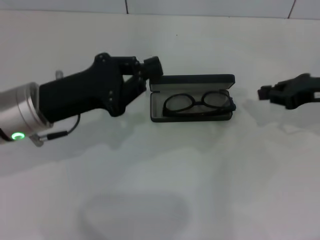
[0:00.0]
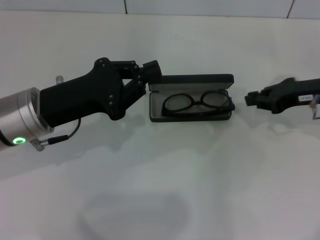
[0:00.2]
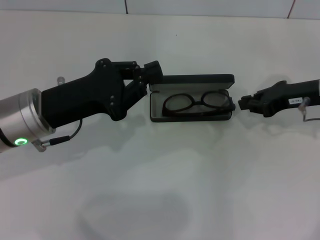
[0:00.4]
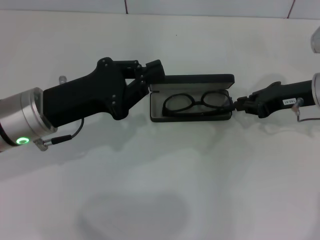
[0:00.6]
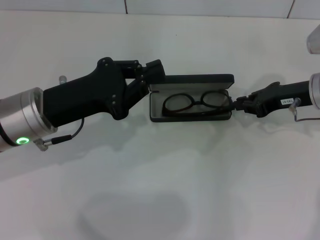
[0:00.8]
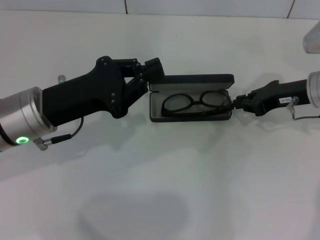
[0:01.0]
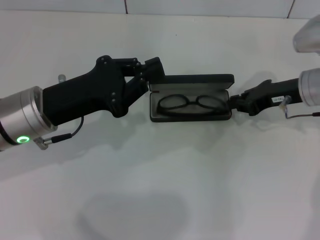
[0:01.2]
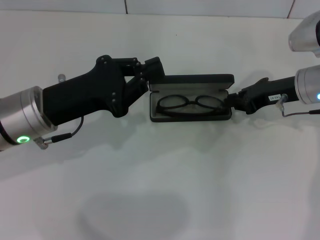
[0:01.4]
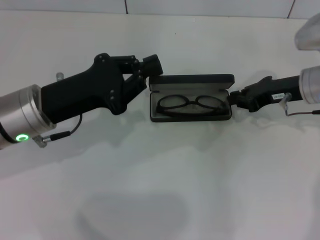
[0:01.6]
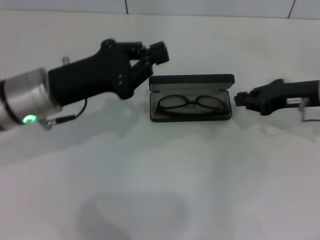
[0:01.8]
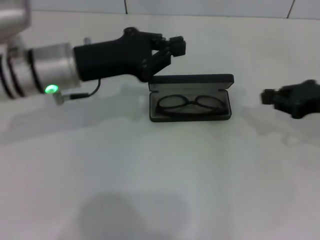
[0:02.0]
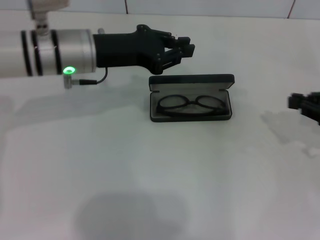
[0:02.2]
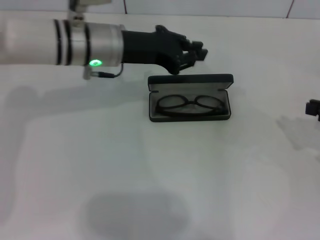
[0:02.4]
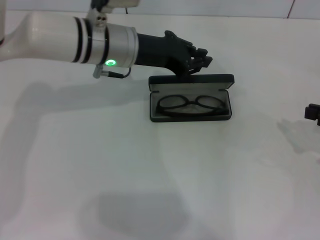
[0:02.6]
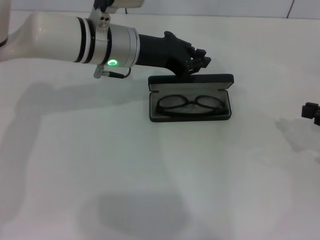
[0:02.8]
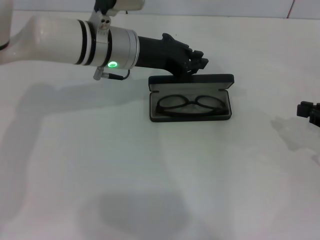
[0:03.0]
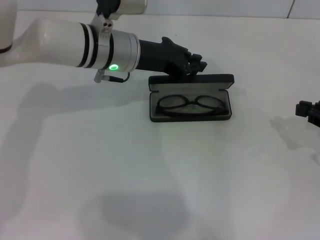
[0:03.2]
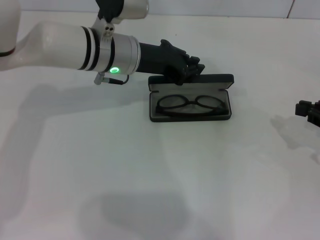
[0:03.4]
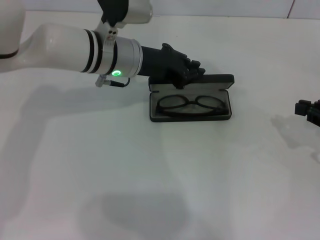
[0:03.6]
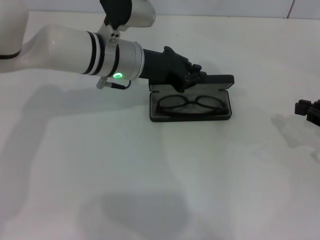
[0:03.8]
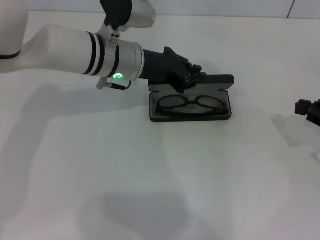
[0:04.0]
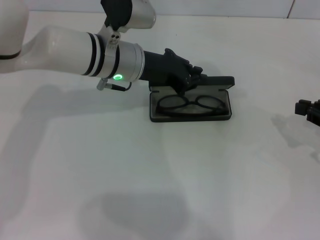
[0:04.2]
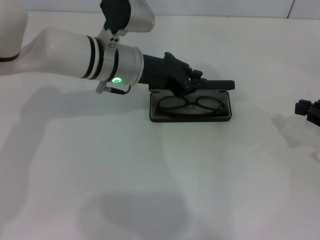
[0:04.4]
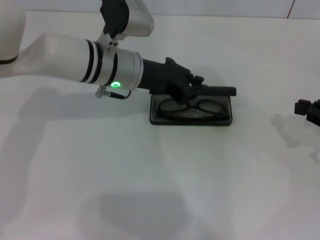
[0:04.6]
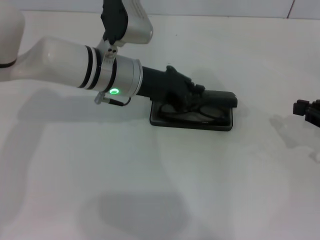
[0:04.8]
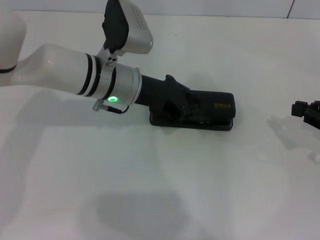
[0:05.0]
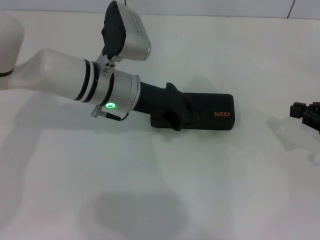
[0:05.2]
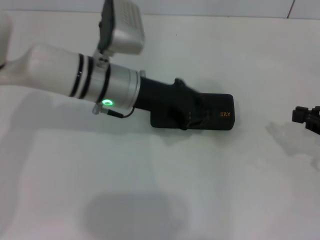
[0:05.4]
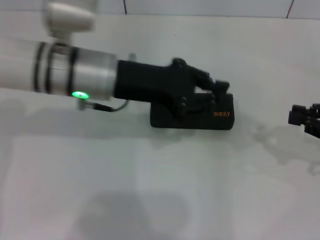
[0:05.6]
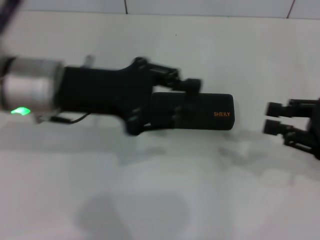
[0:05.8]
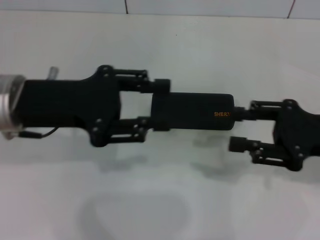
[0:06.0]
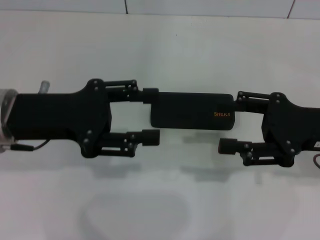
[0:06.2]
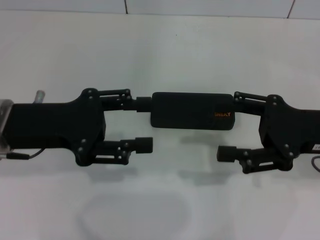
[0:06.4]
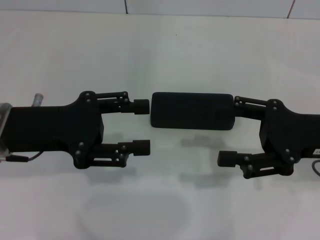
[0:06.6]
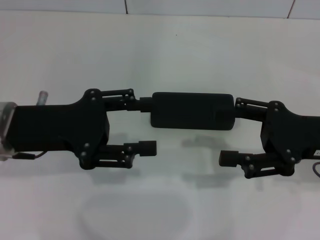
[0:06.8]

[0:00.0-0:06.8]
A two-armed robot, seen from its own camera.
Step, 0:01.8 to 0:05.0: Close the glasses case with your left hand.
0:00.0 to 0:01.4: The right gripper shifts about 5 cm to the left.
0:01.4 to 0:02.8: The right gripper moves to the right and backward, about 15 cm, while the left gripper moves forward and to the right, about 15 cm.
0:02.8 to 0:05.4: The grippers stay close to where they were, moving slightly.
0:05.4 to 0:06.8: The left gripper is displaced to the left and backward by approximately 15 cm, and opens. Meanwhile the right gripper goes about 10 cm to the left, and opens up.
